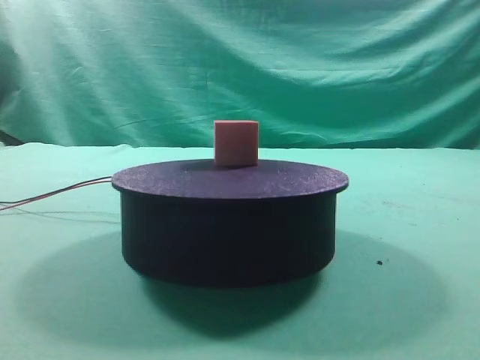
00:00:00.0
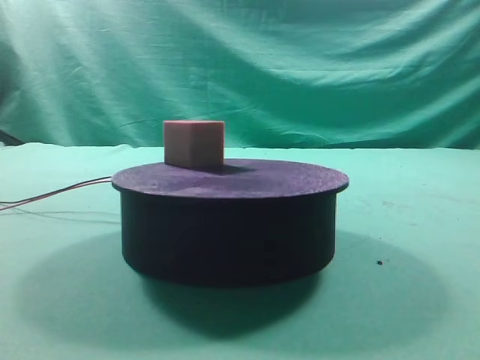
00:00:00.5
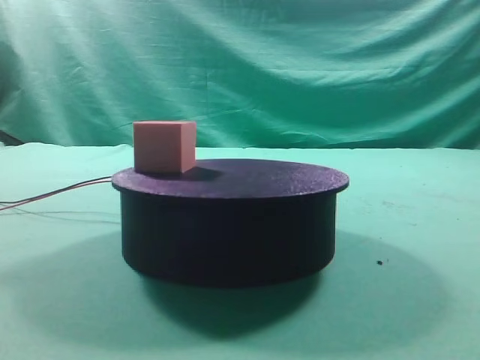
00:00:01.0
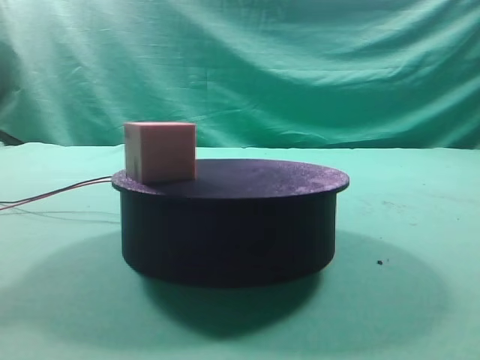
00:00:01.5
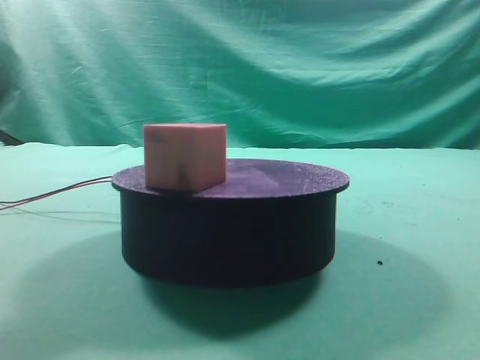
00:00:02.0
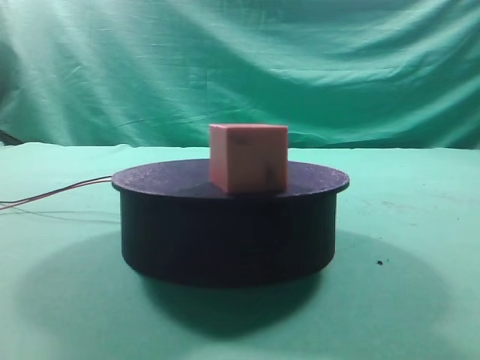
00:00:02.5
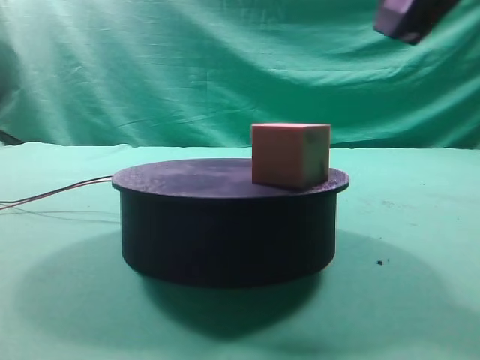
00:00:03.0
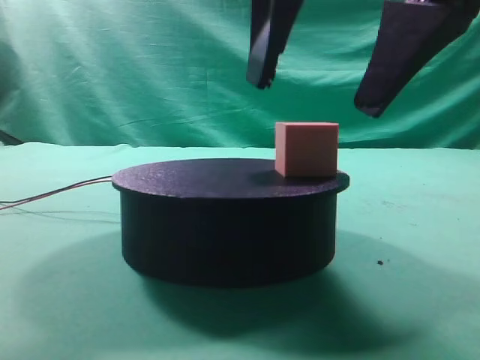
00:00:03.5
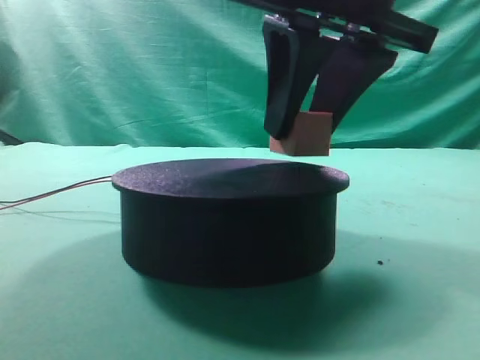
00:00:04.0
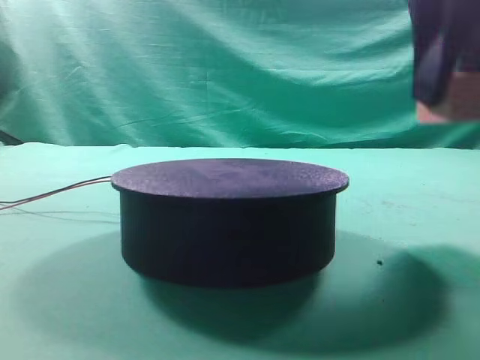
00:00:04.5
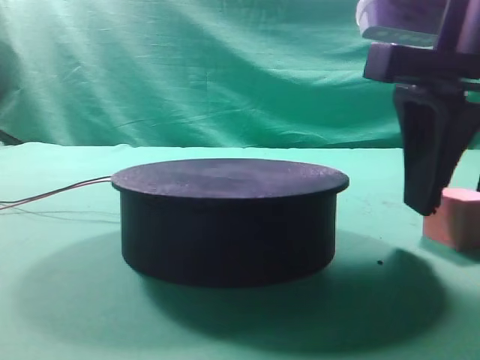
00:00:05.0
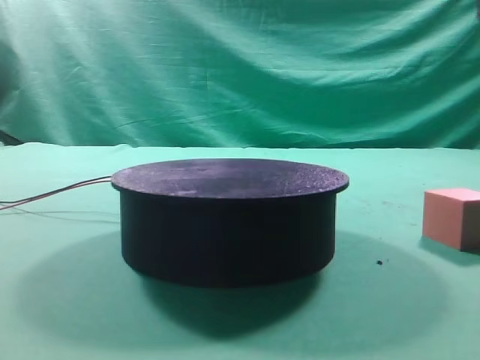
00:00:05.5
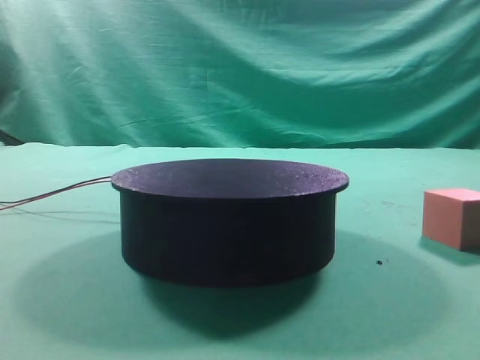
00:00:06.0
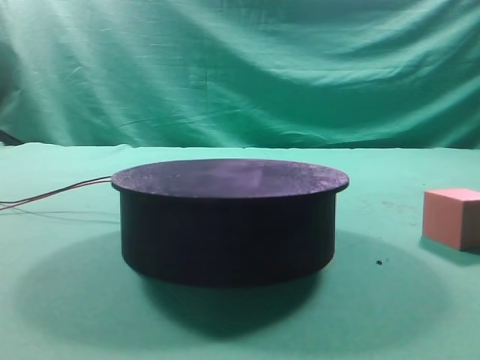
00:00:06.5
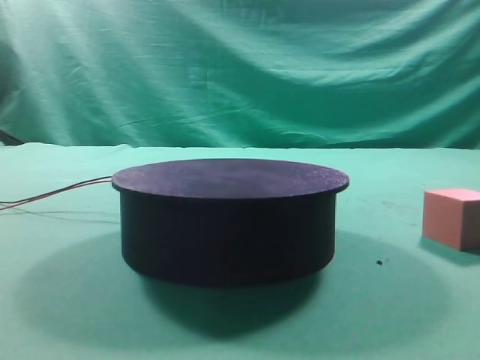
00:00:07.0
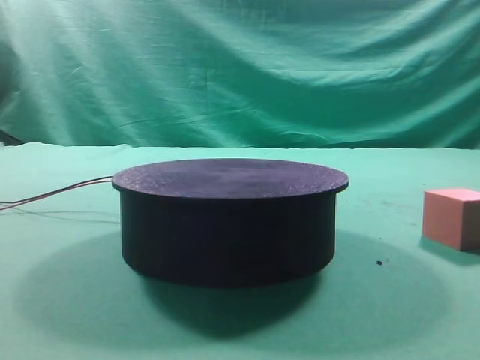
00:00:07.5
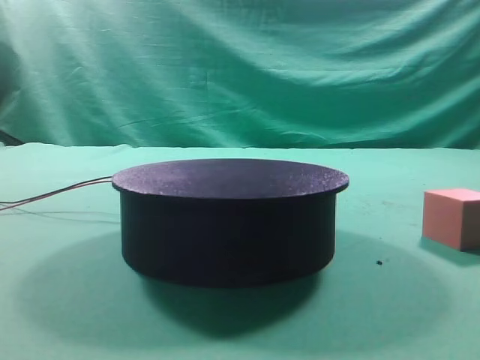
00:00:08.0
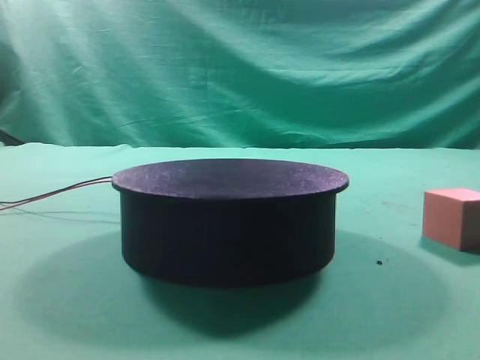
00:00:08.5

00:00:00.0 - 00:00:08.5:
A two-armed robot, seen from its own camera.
Task of the whole recording: grasp the rotating cube-shaped block on the turntable and place it on the table.
Step, 00:00:00.0 - 00:00:04.0: Grasp the rotating cube-shaped block on the turntable.
Step, 00:00:04.5 - 00:00:05.0: Place the cube on the desk.

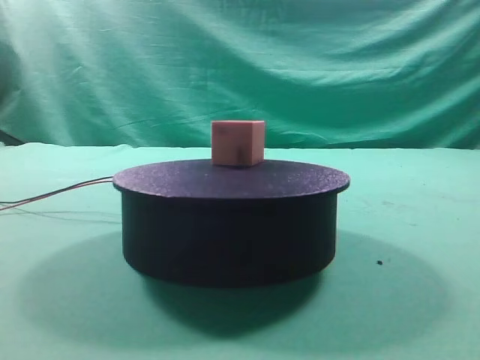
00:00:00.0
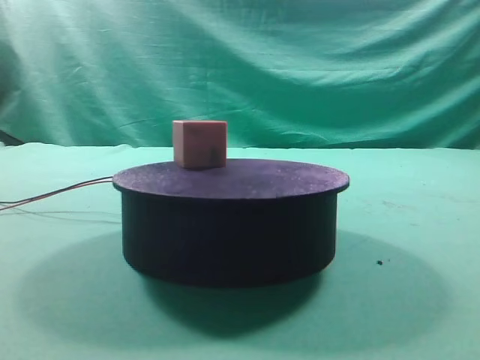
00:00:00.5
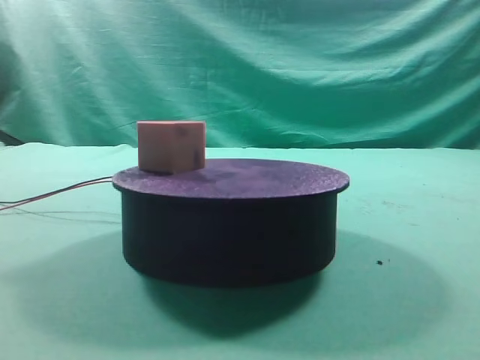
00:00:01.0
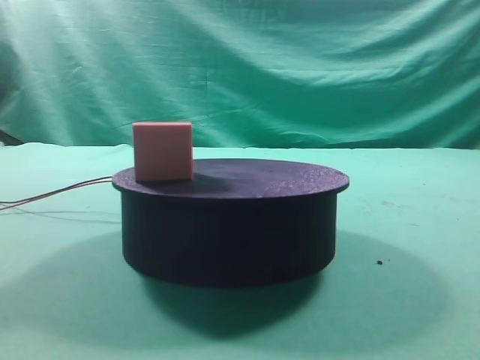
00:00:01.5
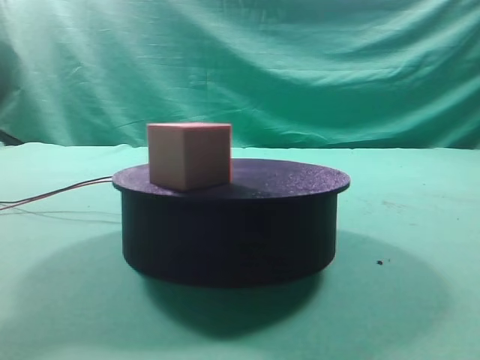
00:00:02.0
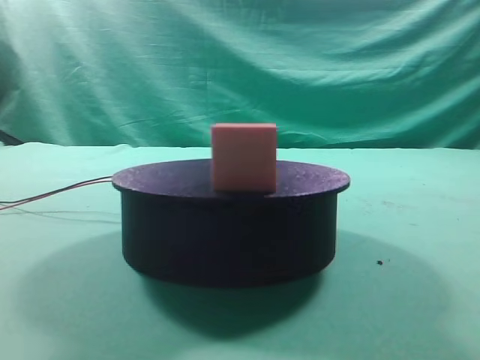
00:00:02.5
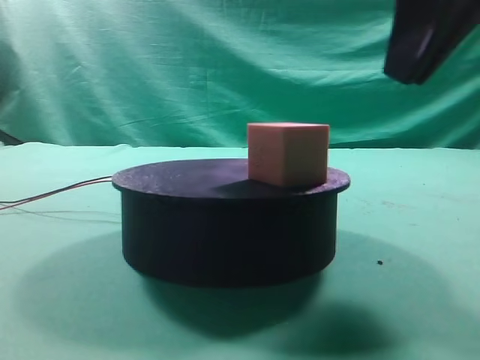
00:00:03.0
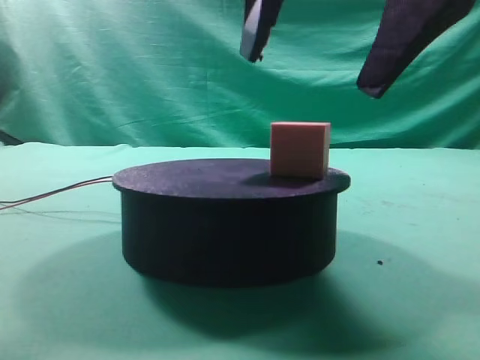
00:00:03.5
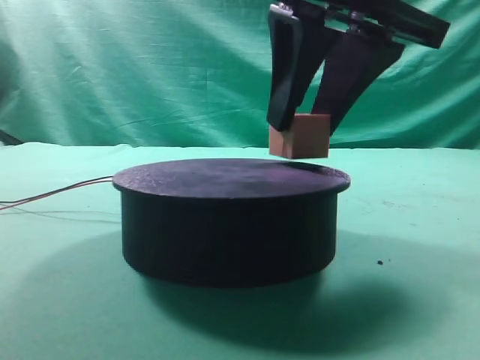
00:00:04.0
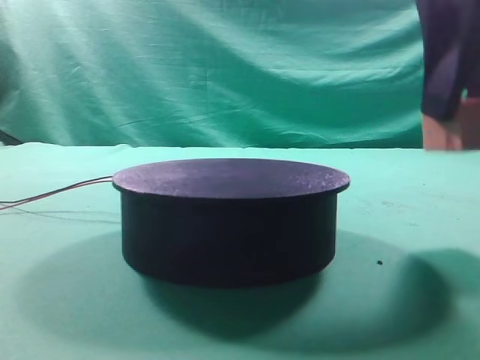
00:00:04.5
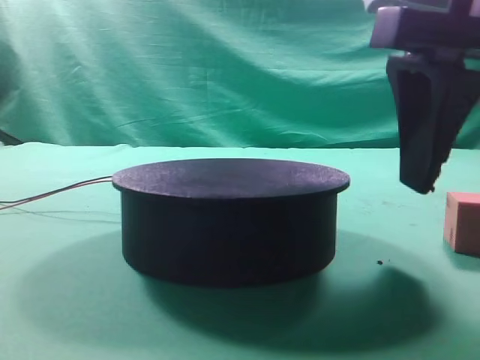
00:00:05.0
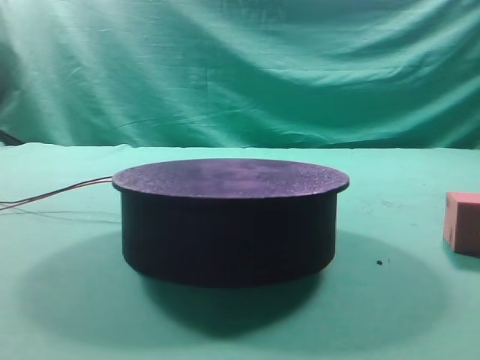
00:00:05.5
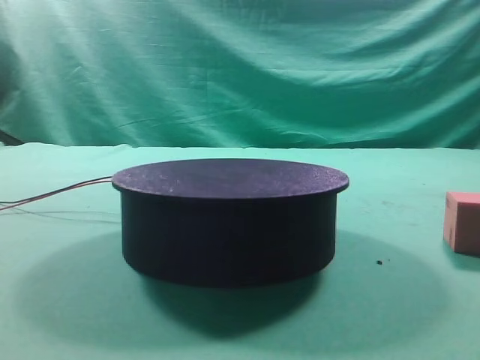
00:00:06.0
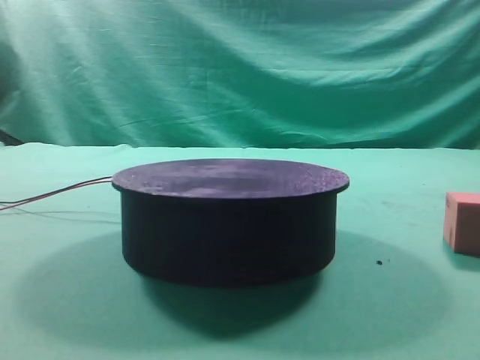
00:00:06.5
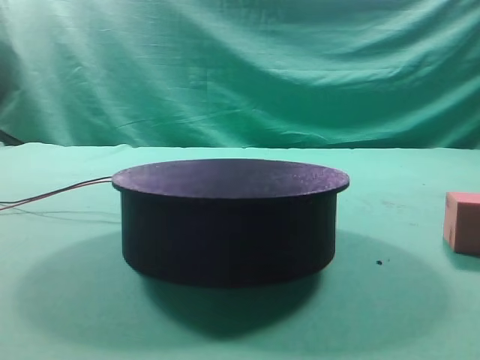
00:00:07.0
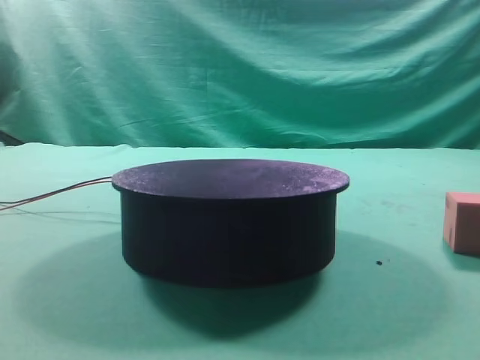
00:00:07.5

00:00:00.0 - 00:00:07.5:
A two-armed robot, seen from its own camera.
Task of the whole recording: grasp the rotating cube-shaped block on the turntable and place it on the table.
Step, 00:00:00.0 - 00:00:04.0: Grasp the rotating cube-shaped block on the turntable.
Step, 00:00:04.5 - 00:00:05.0: Place the cube on the desk.

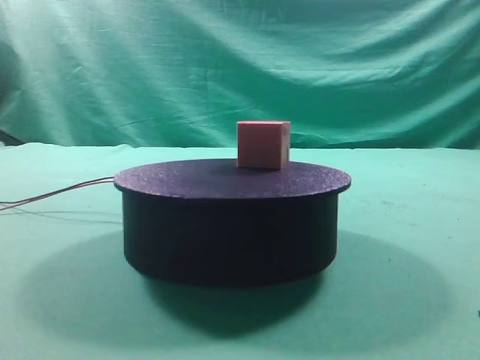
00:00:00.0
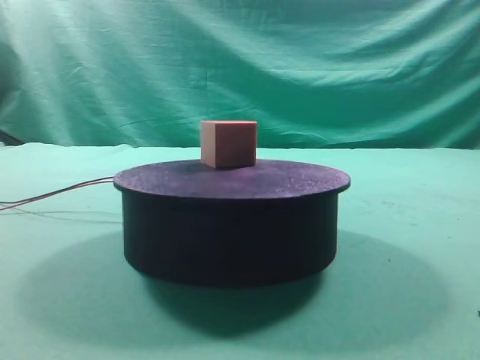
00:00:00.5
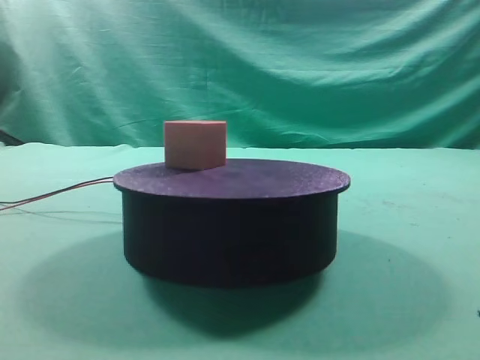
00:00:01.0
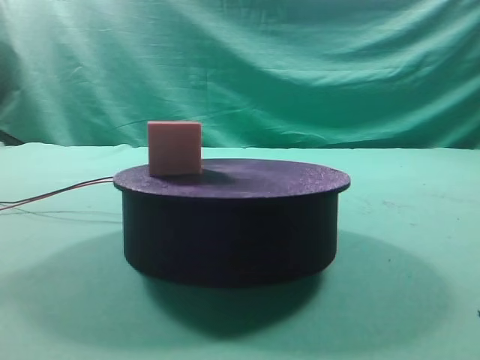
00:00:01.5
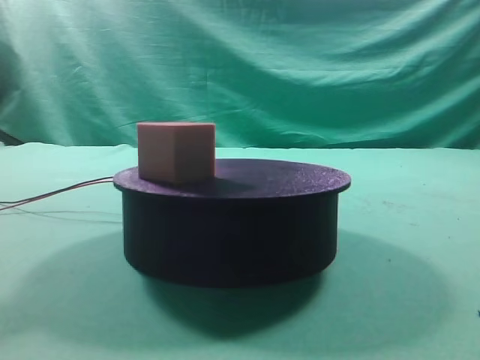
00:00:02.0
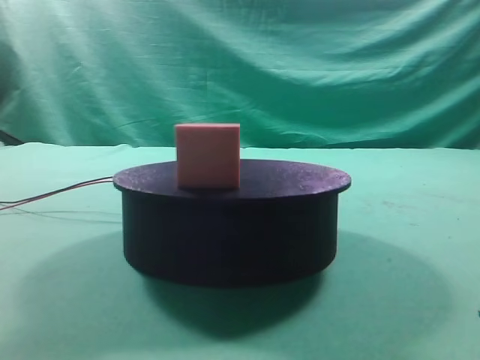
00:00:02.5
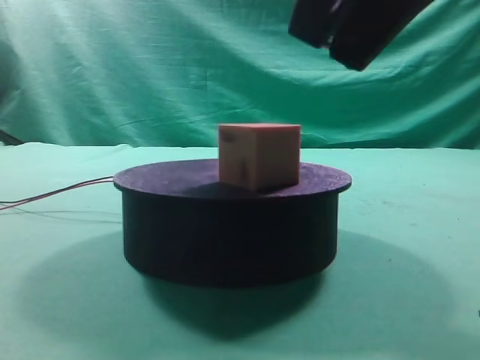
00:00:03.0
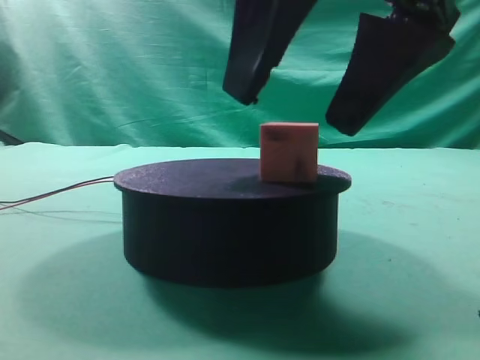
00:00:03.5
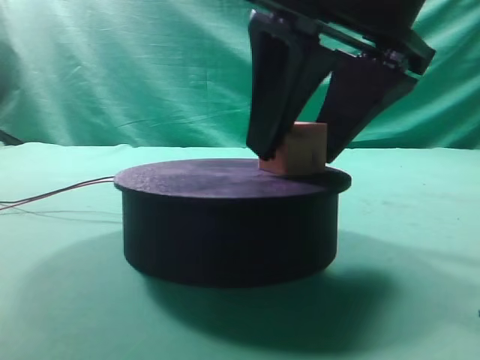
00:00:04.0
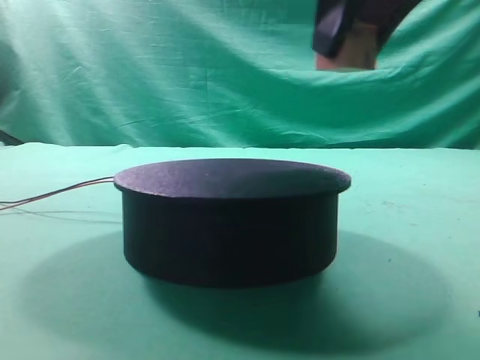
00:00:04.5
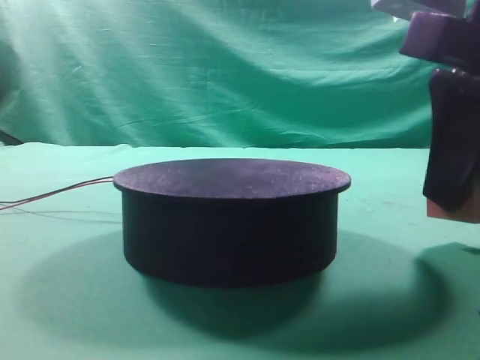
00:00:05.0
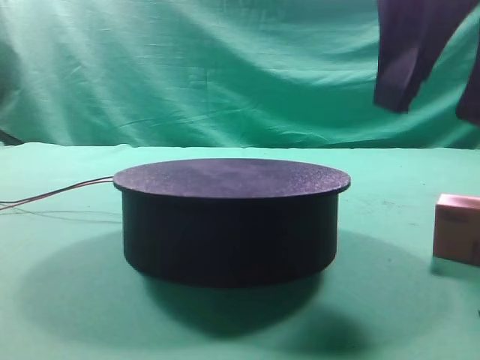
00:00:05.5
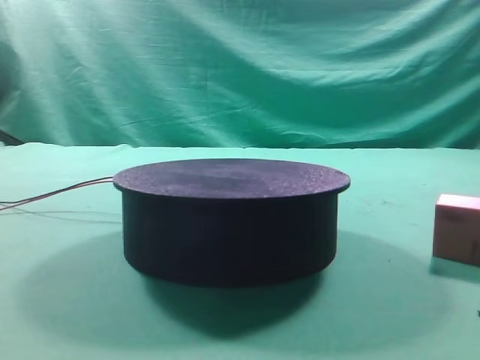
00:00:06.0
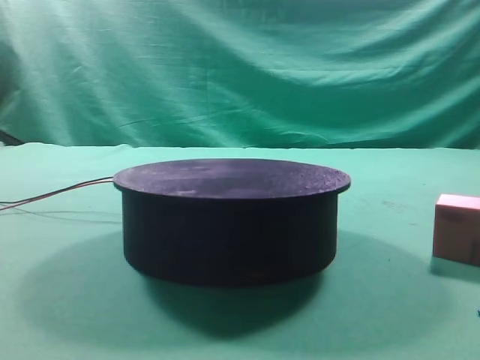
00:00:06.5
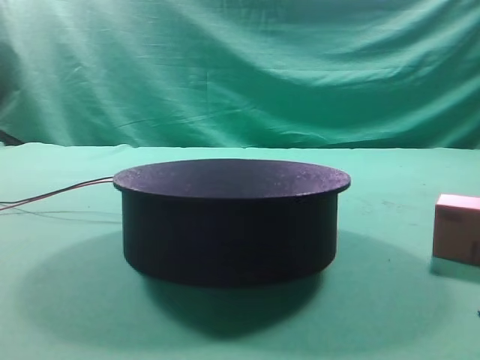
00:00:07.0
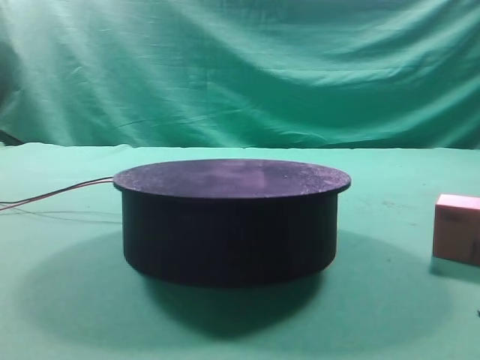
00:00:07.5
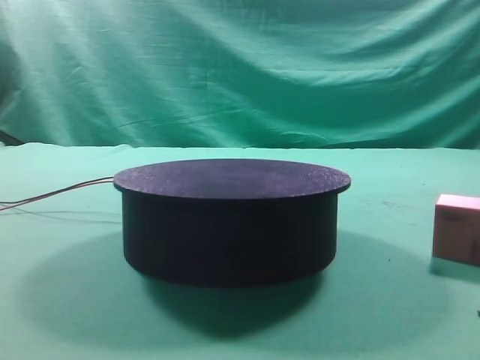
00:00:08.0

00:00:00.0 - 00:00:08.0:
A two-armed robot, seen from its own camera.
Task of the whole recording: grasp the rotating cube-shaped block on the turntable and place it on the table.
Step, 00:00:00.0 - 00:00:04.0: Grasp the rotating cube-shaped block on the turntable.
Step, 00:00:04.5 - 00:00:05.5: Place the cube on the desk.
